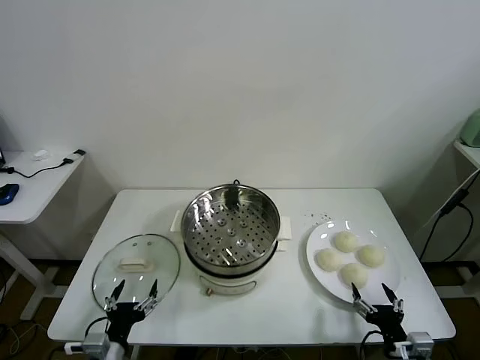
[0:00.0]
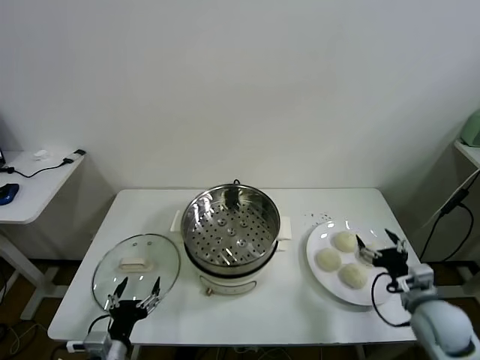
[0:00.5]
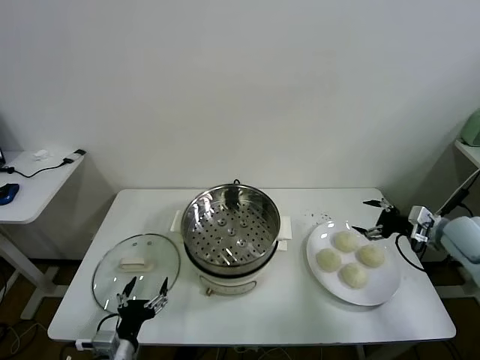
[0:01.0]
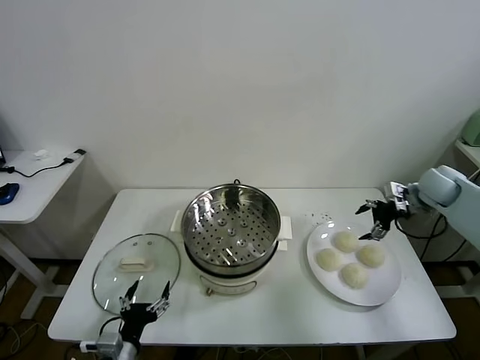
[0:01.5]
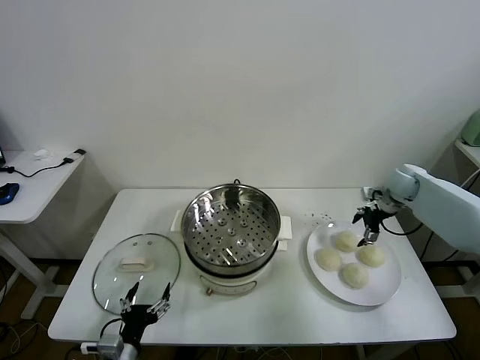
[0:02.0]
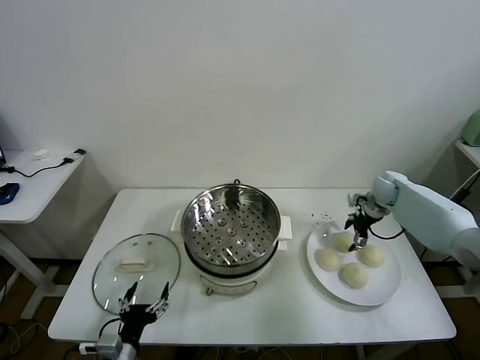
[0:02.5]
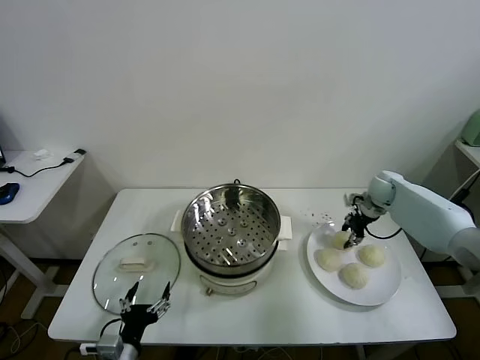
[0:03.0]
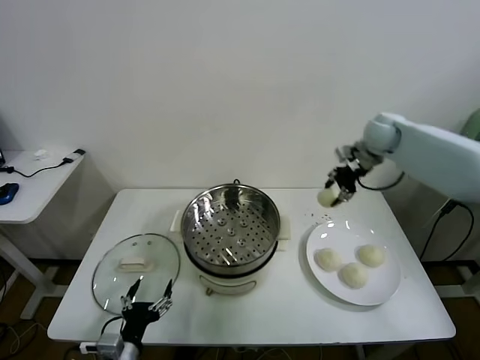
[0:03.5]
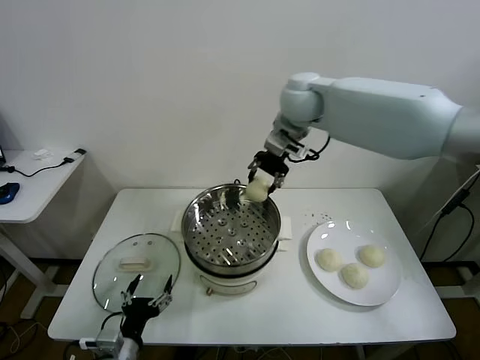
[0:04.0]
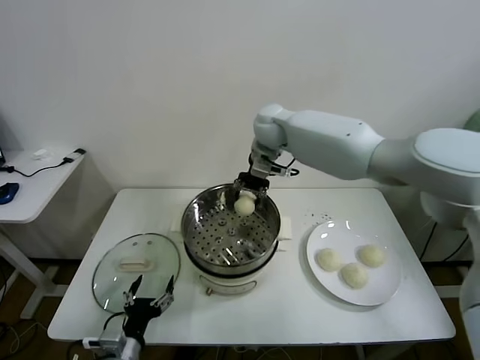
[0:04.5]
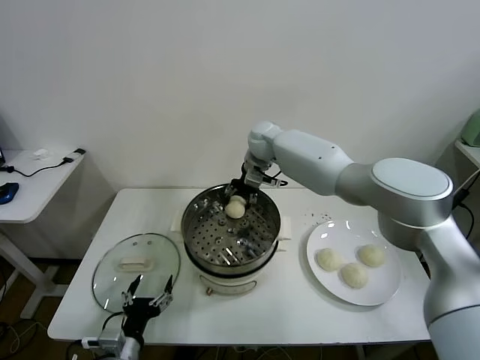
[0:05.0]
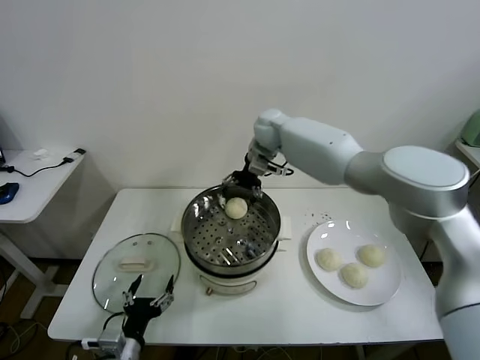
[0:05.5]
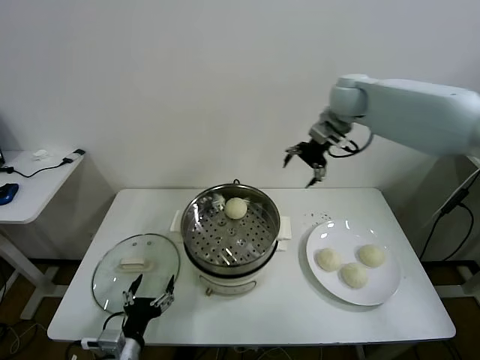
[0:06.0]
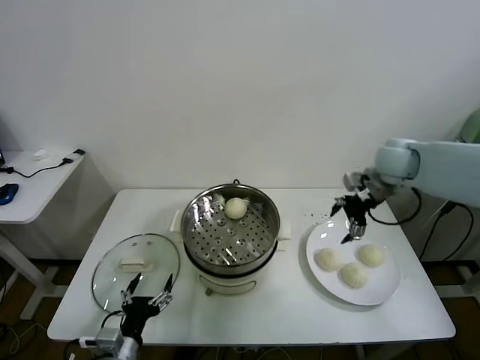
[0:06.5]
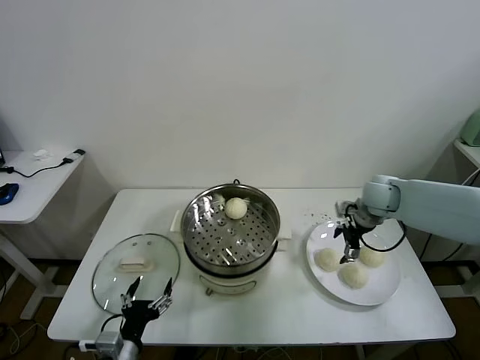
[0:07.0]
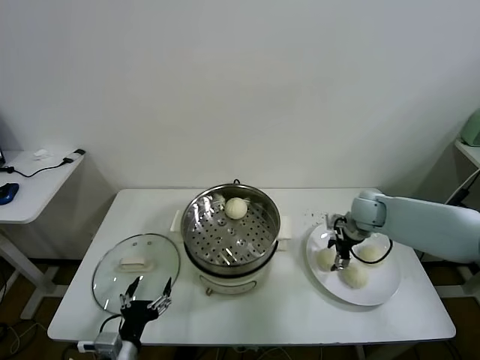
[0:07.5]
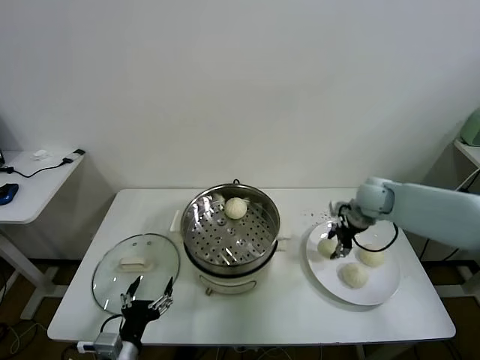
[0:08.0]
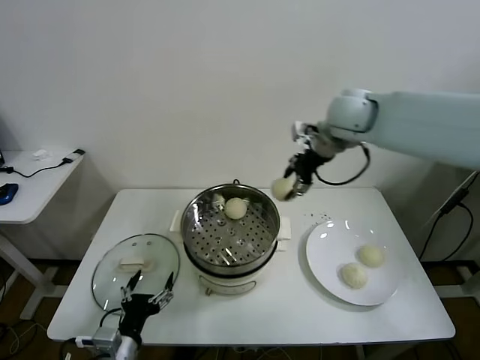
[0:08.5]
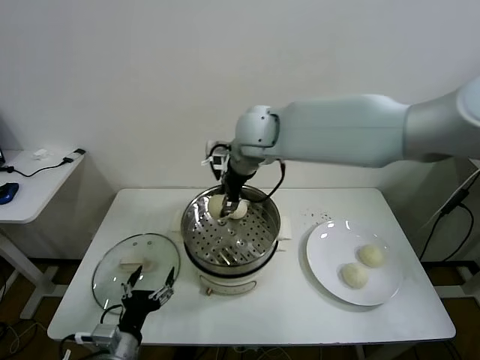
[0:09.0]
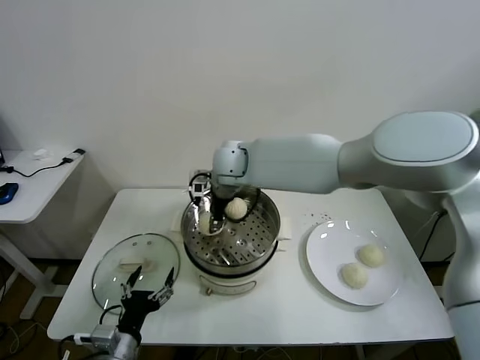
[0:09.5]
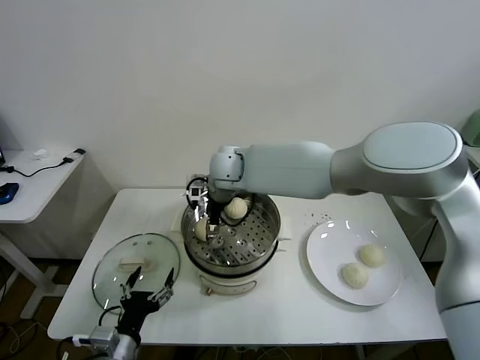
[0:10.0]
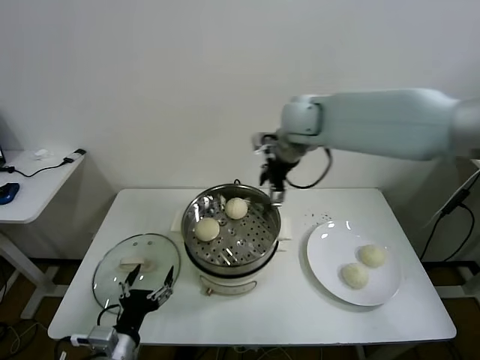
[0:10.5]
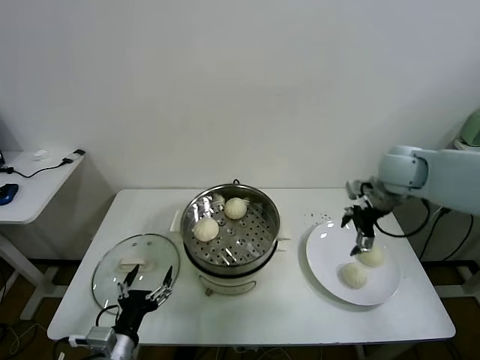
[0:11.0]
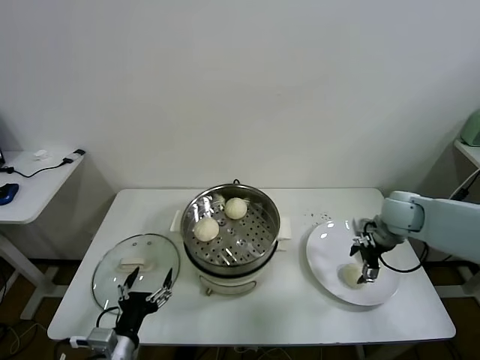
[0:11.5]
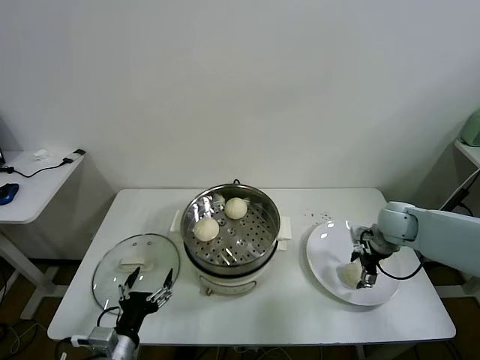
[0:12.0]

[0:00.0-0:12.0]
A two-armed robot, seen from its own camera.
Task of the whole recording: take steamed baozi put them in steamer.
Step, 0:00.0 to 0:02.5: Grasp the baozi in the plate with right gripper.
Step, 0:03.0 to 0:05.0: Place the baozi on the steamer with right gripper.
Step, 0:05.5 to 0:07.5: Grasp the baozi in the plate with right gripper.
Step, 0:08.0 to 0:09.5: Place the baozi on the steamer with right gripper.
0:02.0 to 0:04.0: The right gripper moves to the left and upward, approximately 40 cm, and closes its fingers.
0:04.0 to 0:06.0: The right gripper goes approximately 20 cm to the right, and opens.
0:06.0 to 0:08.0: The right gripper goes roughly 15 cm downward, and closes up.
0:08.0 to 0:10.0: The right gripper is displaced to the left by some 35 cm, and opens.
0:10.0 to 0:12.0: The right gripper heads to the right, covering roughly 40 cm.

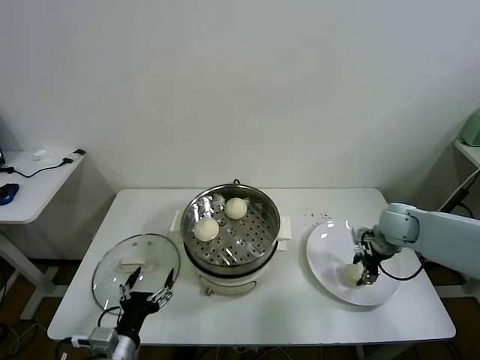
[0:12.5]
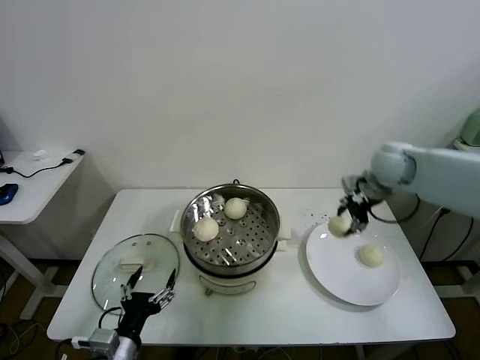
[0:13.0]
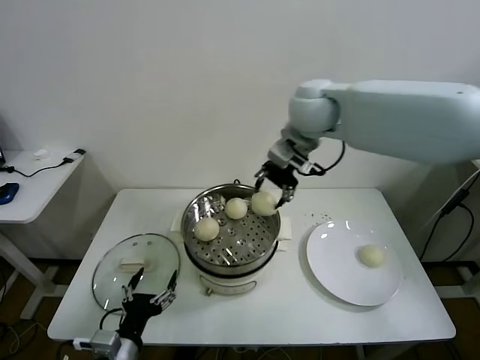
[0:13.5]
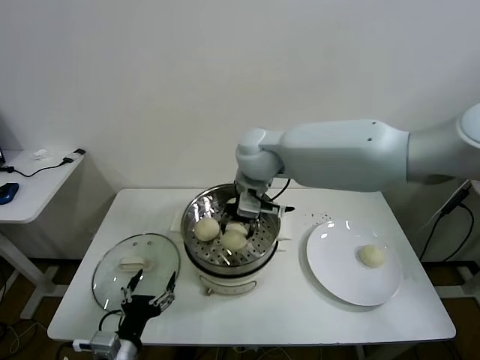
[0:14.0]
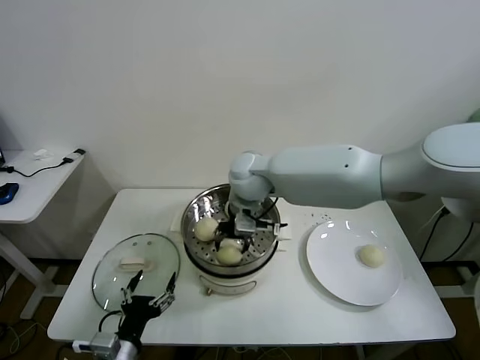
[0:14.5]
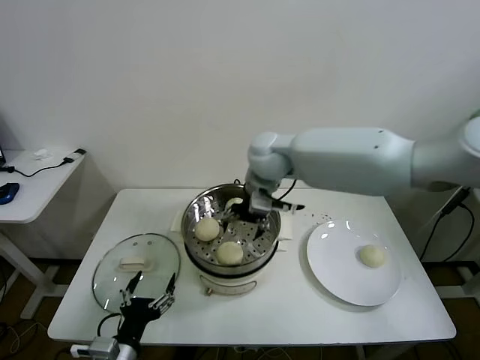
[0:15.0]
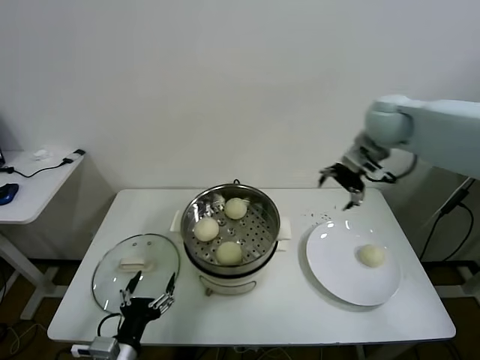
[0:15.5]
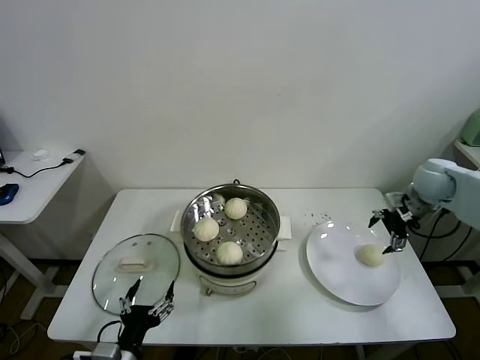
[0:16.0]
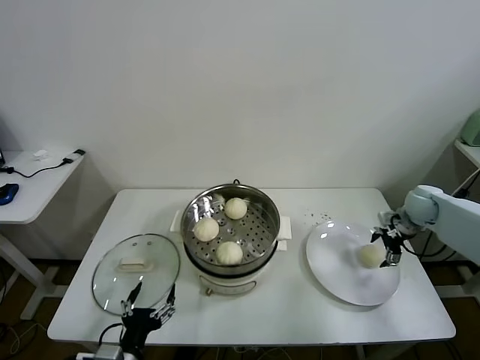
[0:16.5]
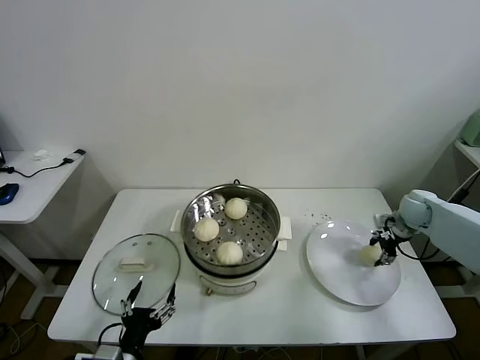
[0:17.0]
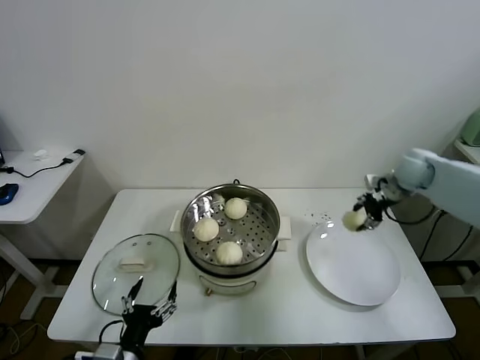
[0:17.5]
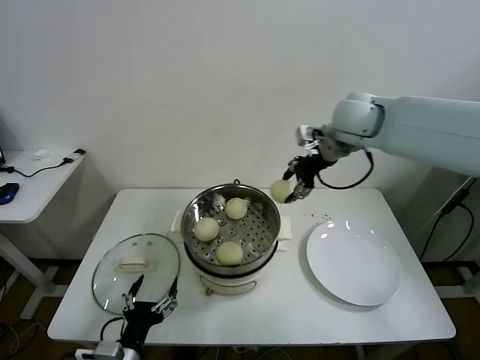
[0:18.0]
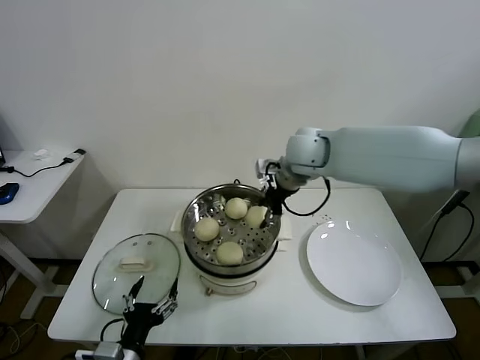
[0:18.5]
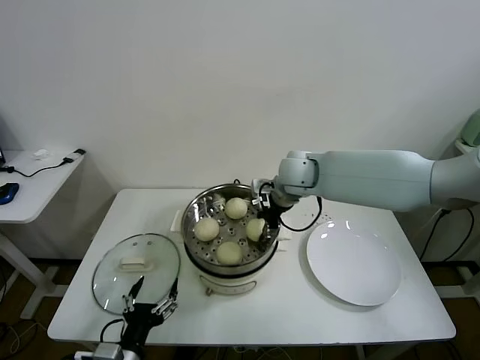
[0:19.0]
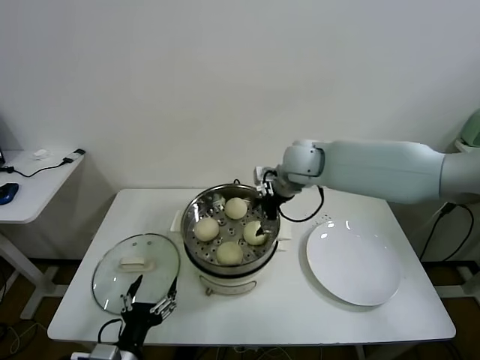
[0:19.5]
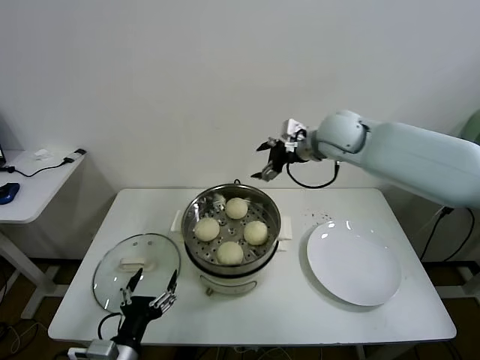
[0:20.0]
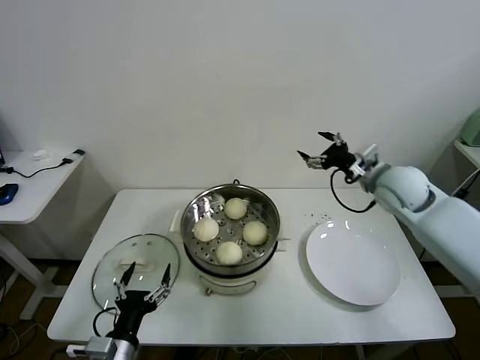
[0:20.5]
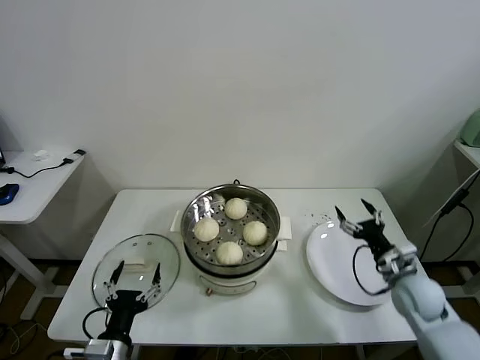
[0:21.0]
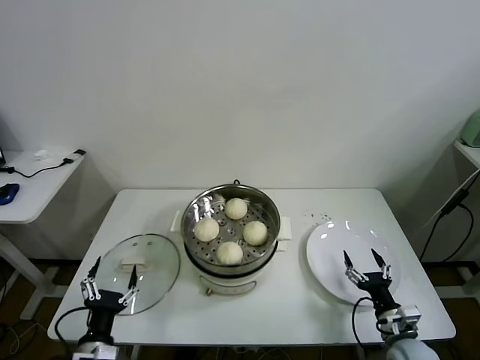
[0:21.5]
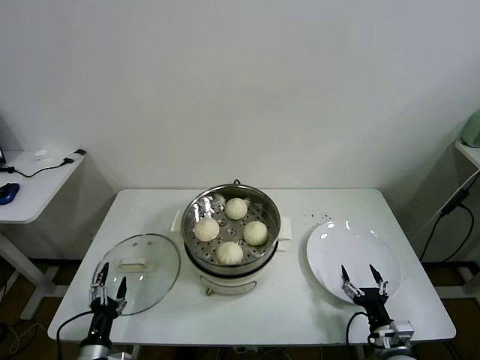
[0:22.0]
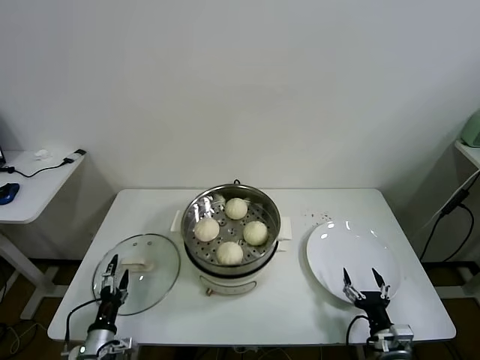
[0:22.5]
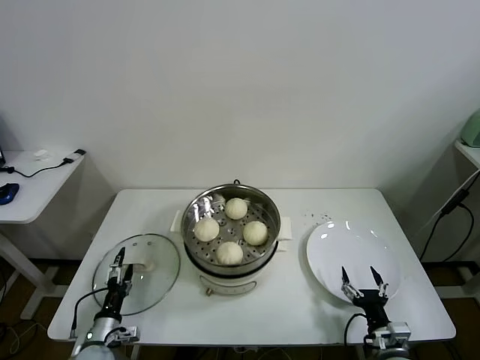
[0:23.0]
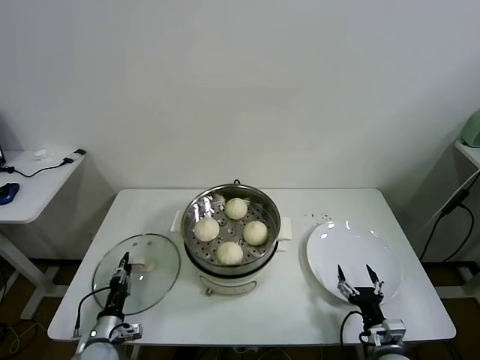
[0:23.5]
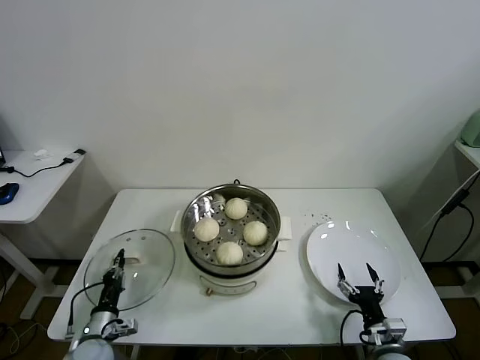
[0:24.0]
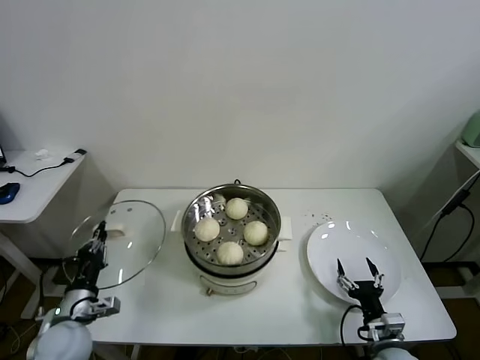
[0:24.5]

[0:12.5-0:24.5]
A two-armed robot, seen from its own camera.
Task of the whole recording: take steamed baozi put them in steamer.
Step, 0:12.5 to 0:14.5: Place the baozi on the steamer with right gripper.
Step, 0:15.0 to 0:17.0: Grasp the baozi in the plate with right gripper.
Step, 0:17.5 to 0:19.0: Place the baozi on the steamer with right gripper.
Step, 0:19.5 to 0:23.5: Grasp the pot lid with left gripper.
0:12.5 to 0:14.5: The right gripper travels to the left by approximately 35 cm, and opens up.
0:14.5 to 0:16.5: The right gripper moves to the right, about 40 cm, and opens its fingers.
0:16.5 to 0:18.5: The right gripper is displaced to the left and upward by some 35 cm, and closes.
0:18.5 to 0:20.5: The right gripper travels to the right by about 20 cm, and opens.
0:20.5 to 0:22.5: The right gripper shifts some 40 cm downward and backward. The left gripper is displaced downward and to the left by about 20 cm.
0:22.5 to 0:24.5: The left gripper shifts some 10 cm upward, and closes.

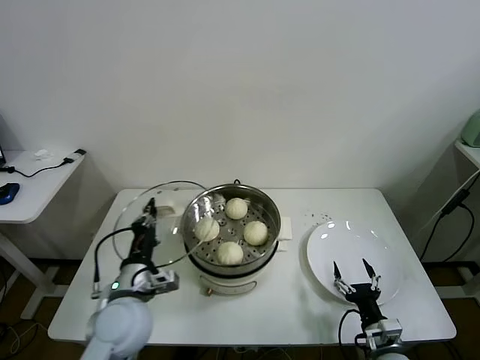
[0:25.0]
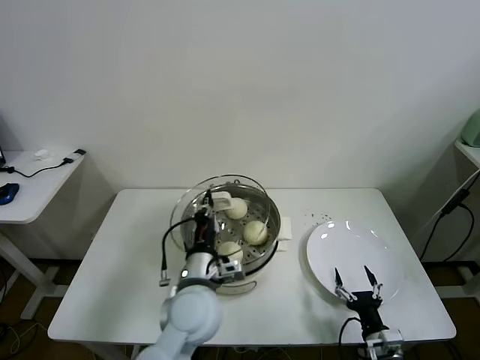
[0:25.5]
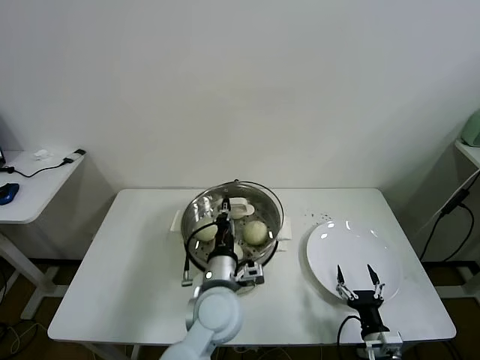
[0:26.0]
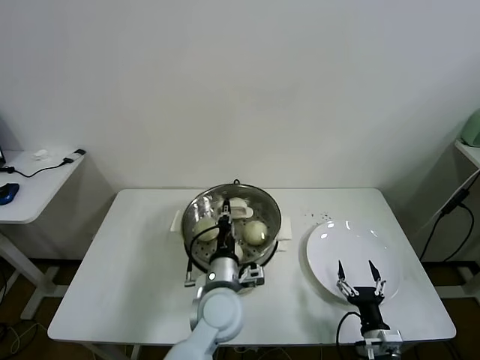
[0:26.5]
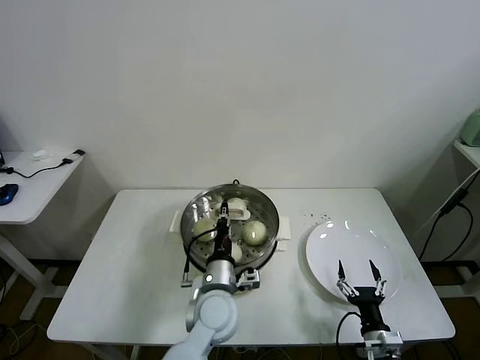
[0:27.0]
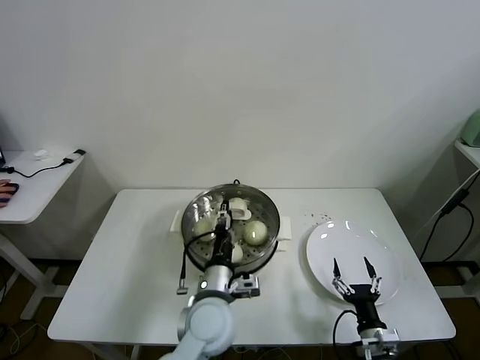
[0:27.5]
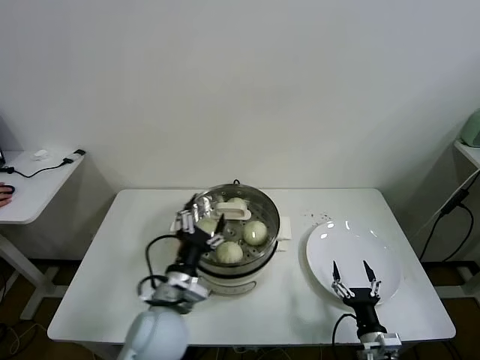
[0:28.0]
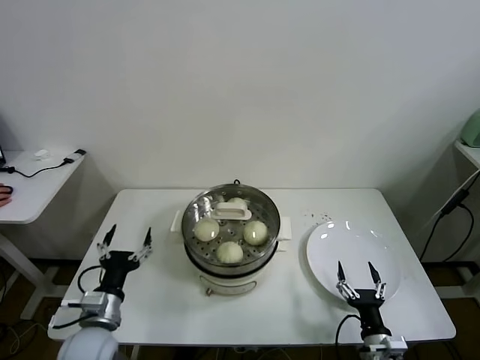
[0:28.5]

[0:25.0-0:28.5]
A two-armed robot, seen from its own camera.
Task of the whole recording: take steamed baozi put them in steamer.
Step, 0:25.0 to 0:27.0: Place the pot lid on the steamer with left gripper.
0:25.0 to 0:27.0: The left gripper goes approximately 20 cm to the right.
0:27.0 to 0:28.5: The left gripper shifts about 25 cm to the left, and opens.
